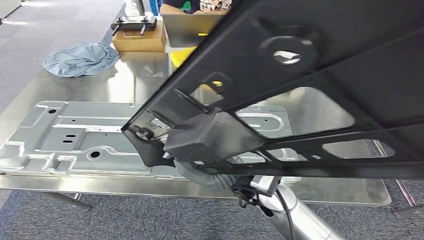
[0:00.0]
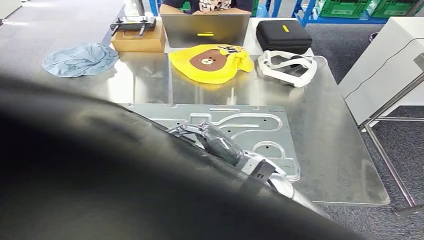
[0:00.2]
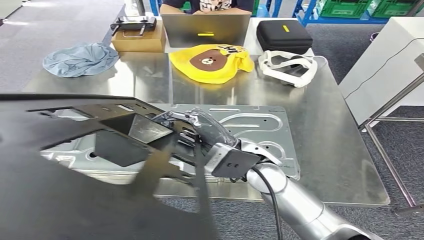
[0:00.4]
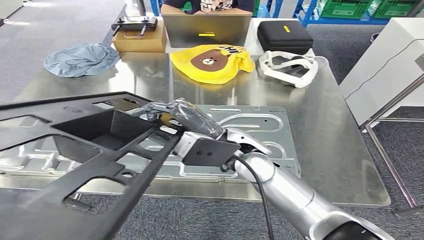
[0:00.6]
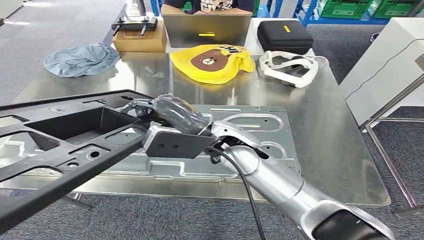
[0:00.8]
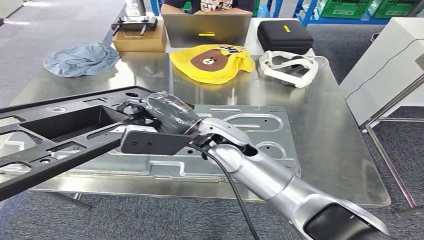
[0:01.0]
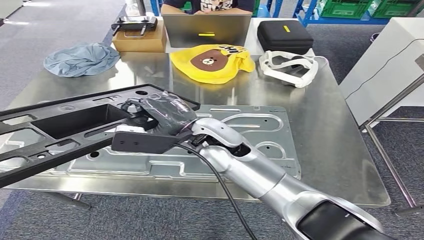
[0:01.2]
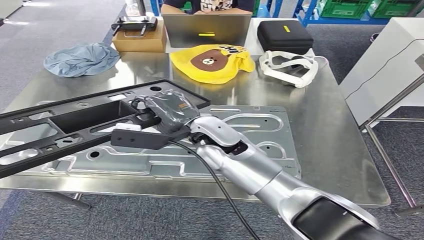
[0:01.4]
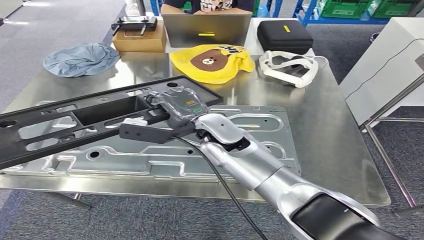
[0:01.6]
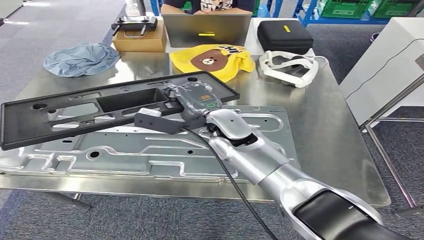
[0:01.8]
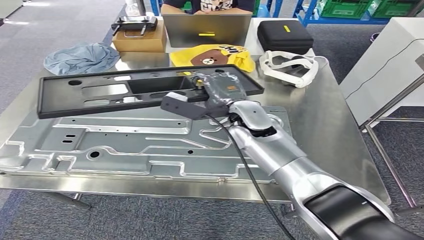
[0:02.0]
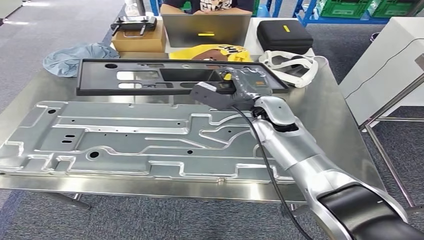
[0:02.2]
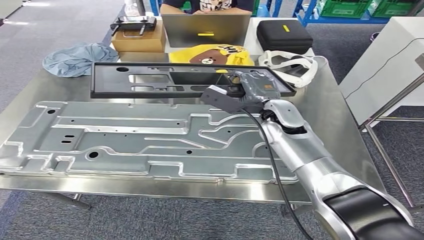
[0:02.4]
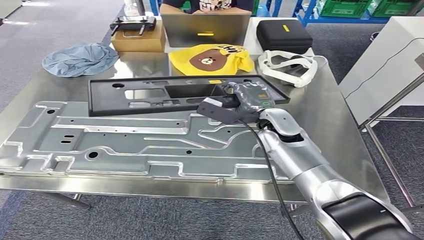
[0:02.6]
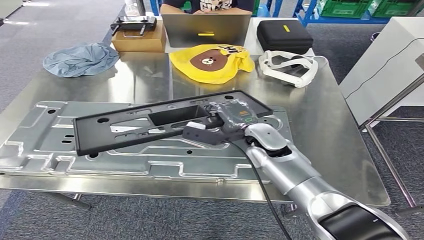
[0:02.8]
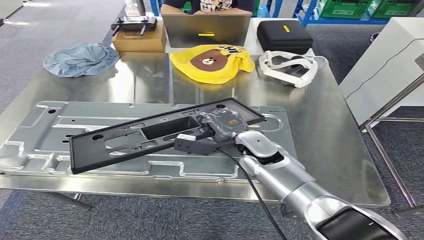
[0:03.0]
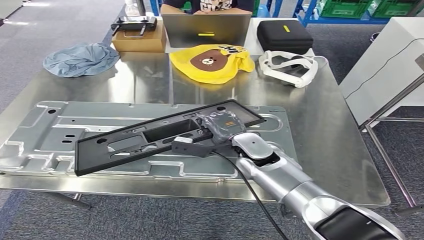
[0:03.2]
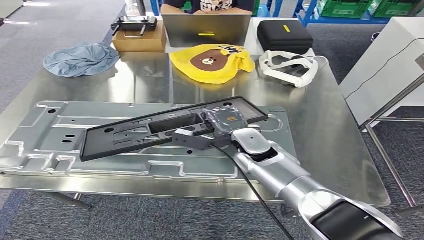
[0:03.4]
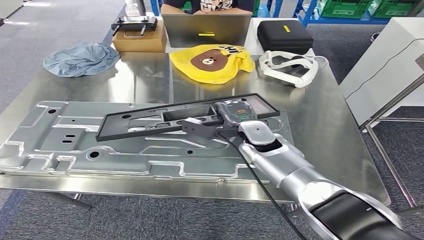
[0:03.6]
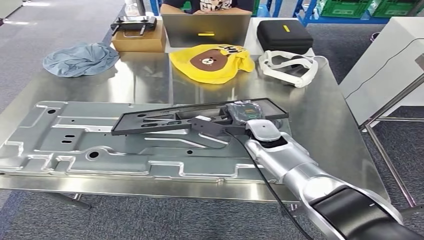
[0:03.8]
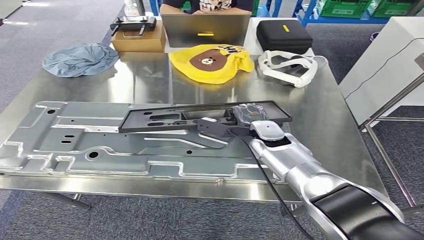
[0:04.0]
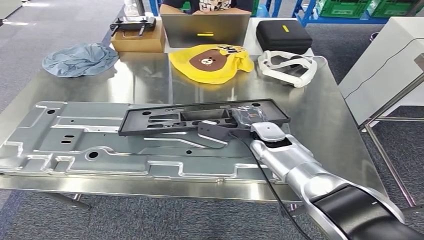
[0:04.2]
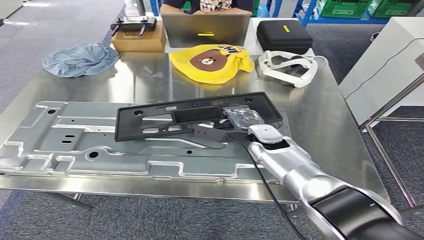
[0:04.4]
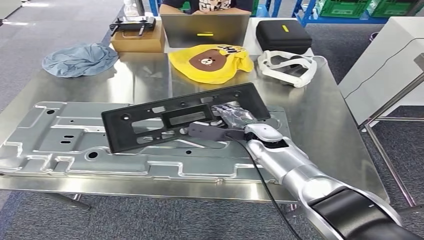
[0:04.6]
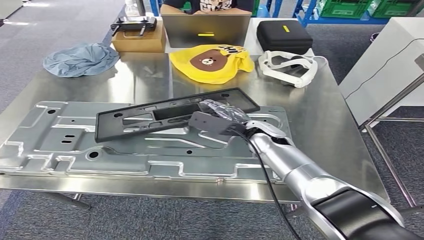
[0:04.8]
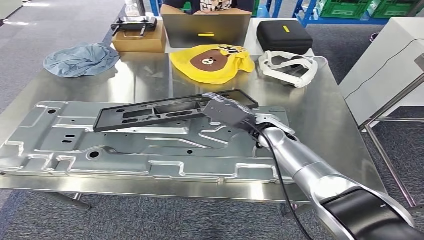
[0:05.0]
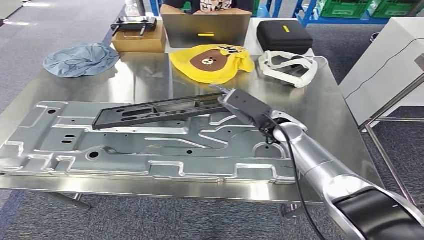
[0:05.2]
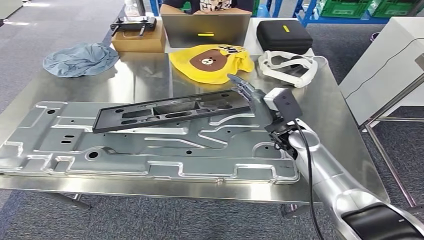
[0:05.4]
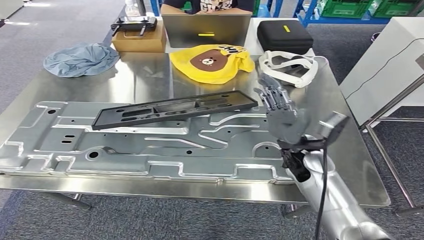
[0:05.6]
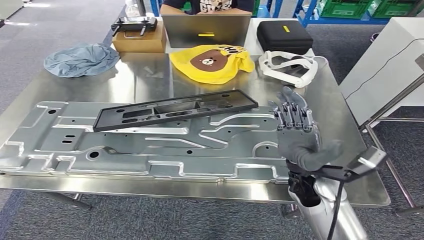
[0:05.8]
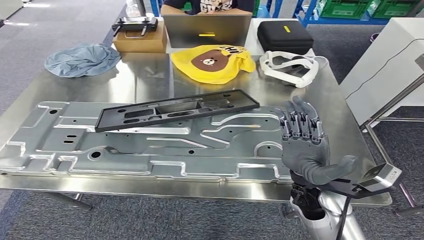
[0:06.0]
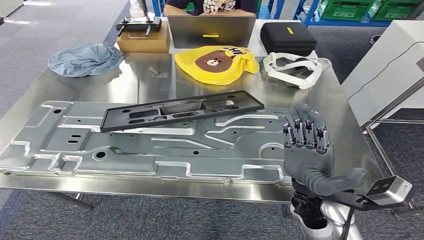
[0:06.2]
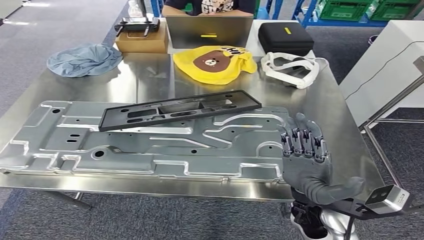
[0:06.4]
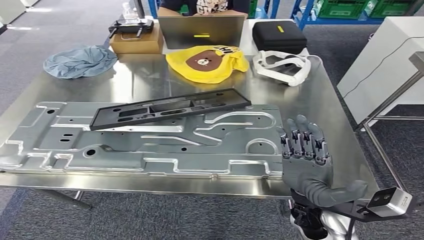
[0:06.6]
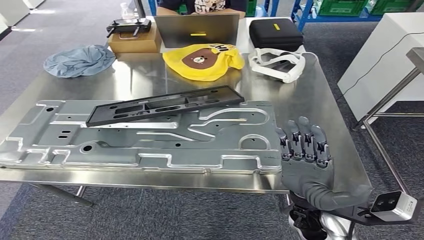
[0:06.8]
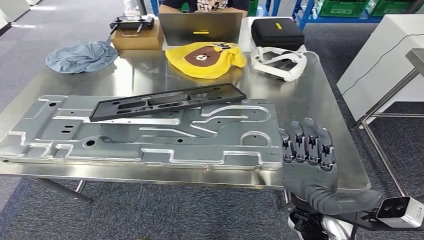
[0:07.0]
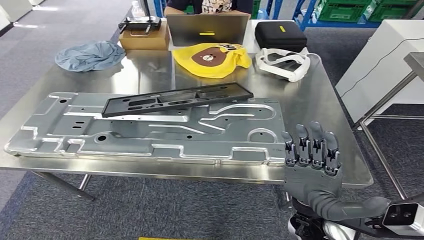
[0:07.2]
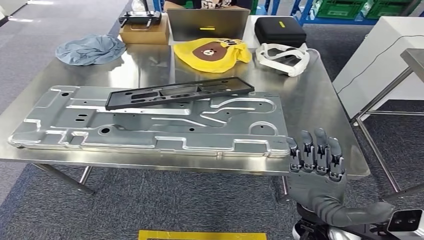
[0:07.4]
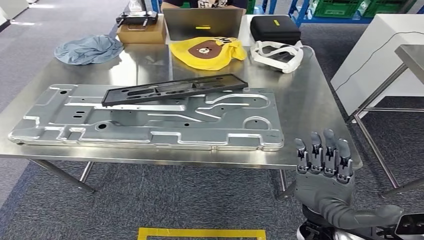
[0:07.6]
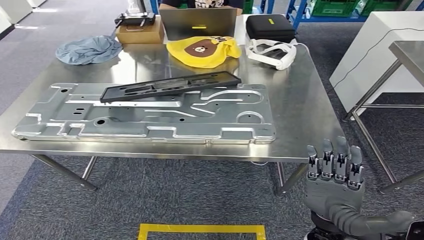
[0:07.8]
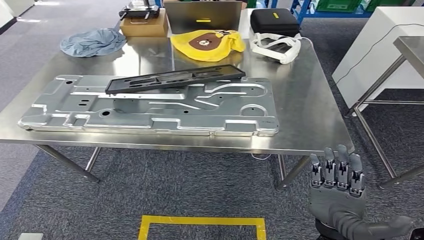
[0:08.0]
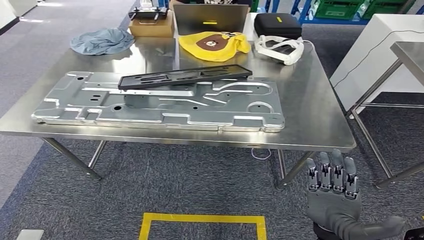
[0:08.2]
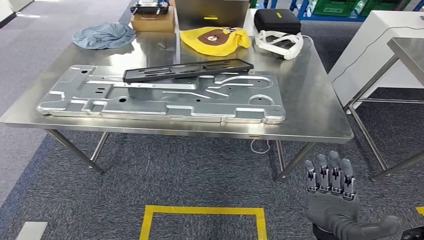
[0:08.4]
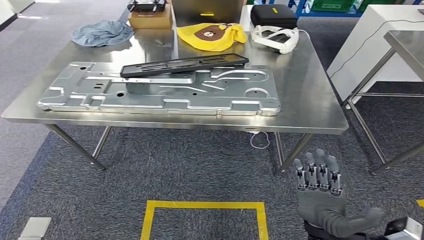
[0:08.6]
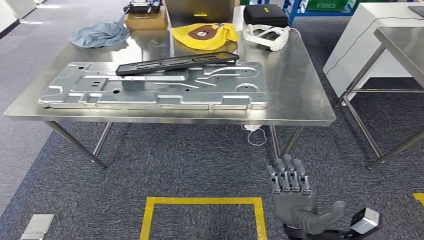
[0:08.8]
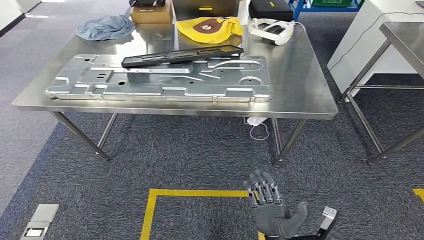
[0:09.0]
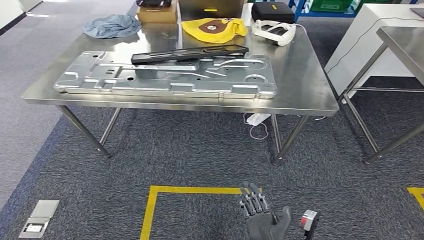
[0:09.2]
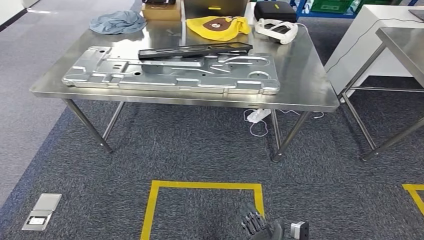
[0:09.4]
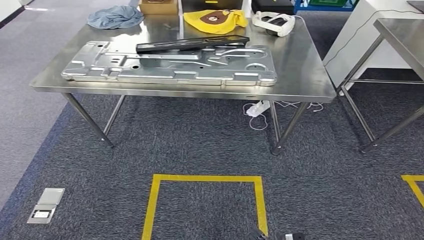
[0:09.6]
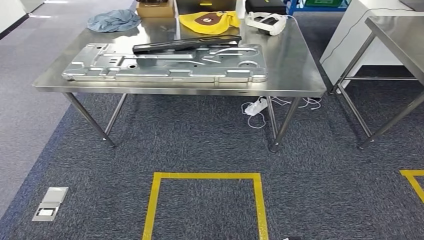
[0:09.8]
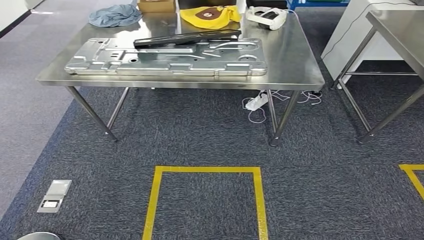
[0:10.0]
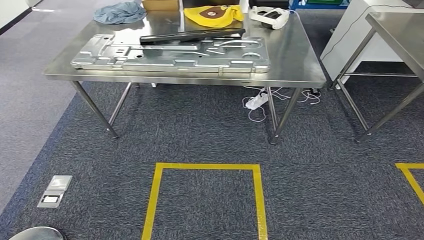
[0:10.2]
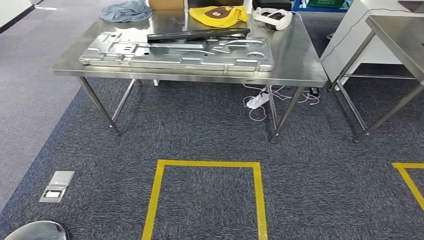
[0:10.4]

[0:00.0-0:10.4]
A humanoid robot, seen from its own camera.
Step, 0:00.0 to 0:07.8: Insert the large material into the corresponding slot on the workbench.
0:03.0 to 0:04.4: The right hand ends up approximately 5 cm from where it was.
0:04.4 to 0:06.0: The right hand shifts about 15 cm backward.

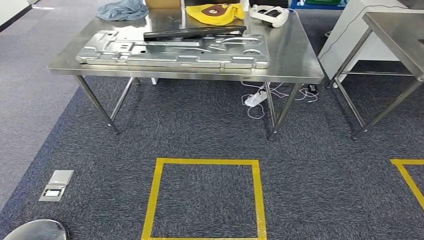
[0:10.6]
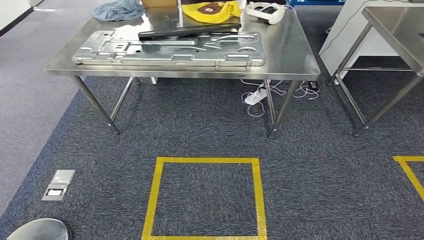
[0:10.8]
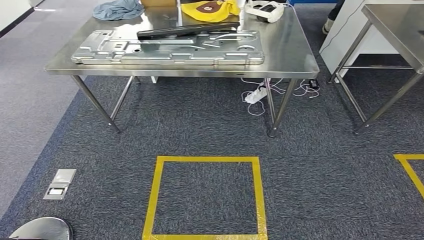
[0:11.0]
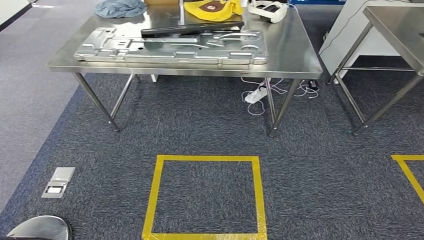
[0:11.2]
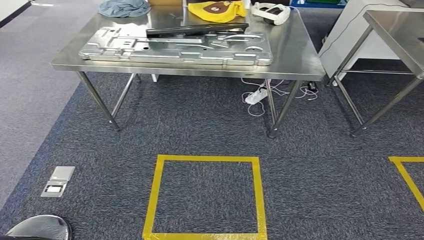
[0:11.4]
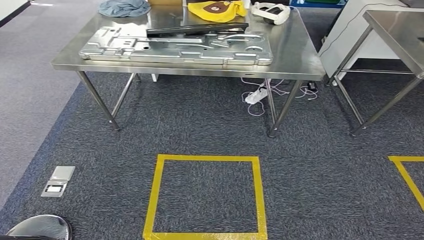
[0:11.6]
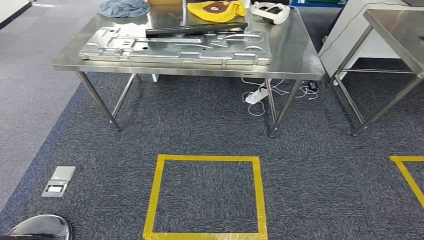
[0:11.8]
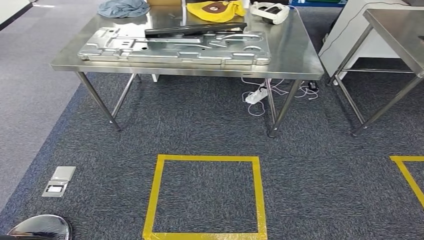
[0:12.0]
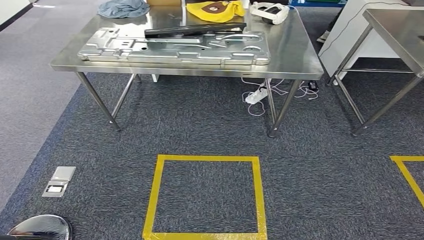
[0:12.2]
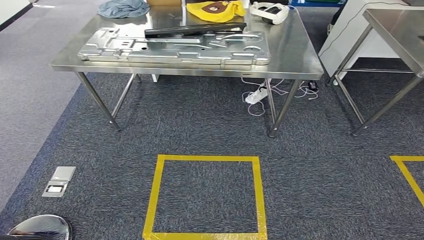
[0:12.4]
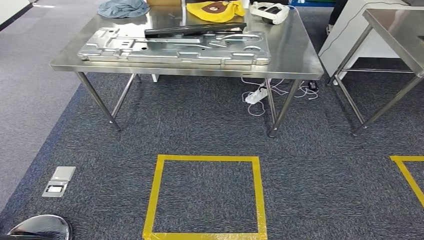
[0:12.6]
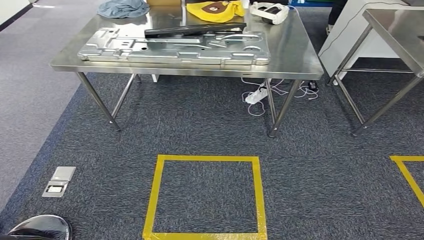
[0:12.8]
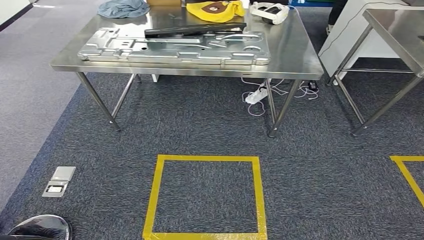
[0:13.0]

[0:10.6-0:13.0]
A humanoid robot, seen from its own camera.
Step, 0:10.6 to 0:13.0: Return to the initial position at the shelf.
0:10.6 to 0:13.0: The hands stay close to where they were, moving slightly.
